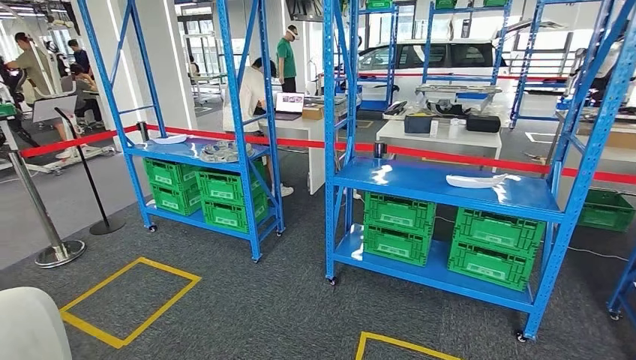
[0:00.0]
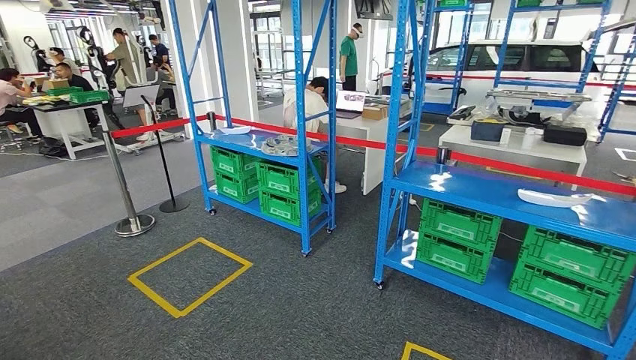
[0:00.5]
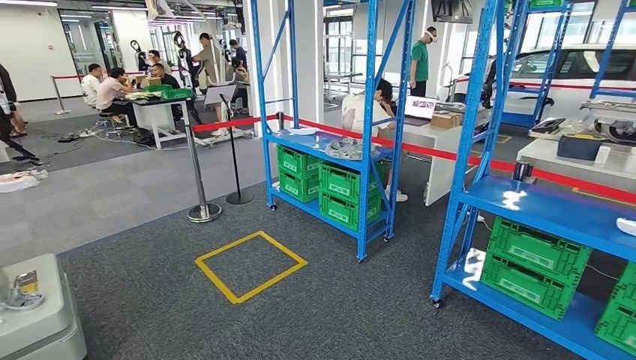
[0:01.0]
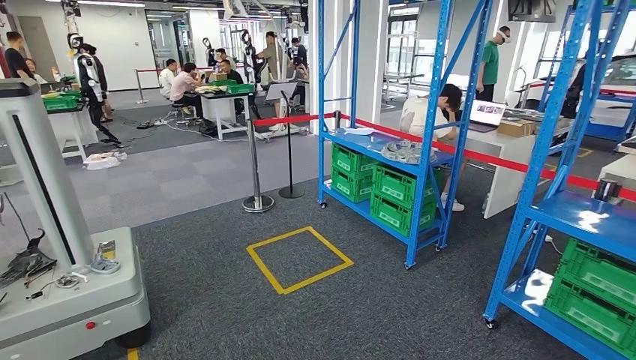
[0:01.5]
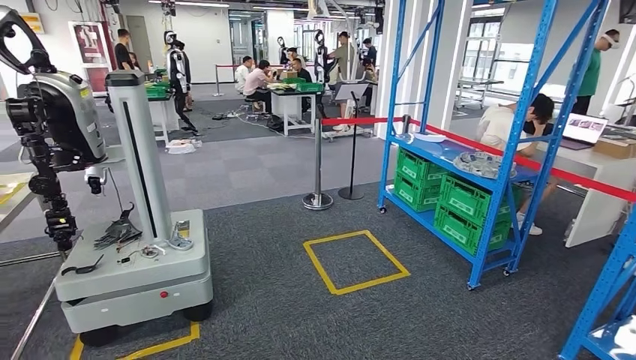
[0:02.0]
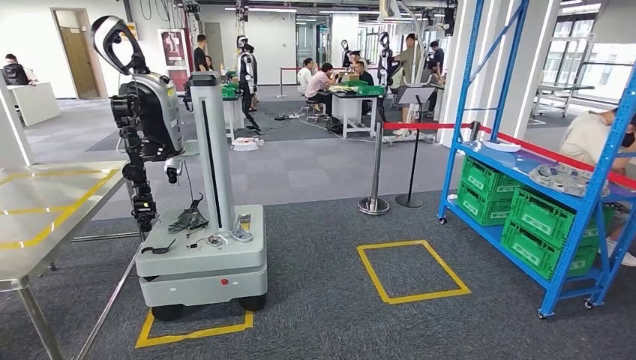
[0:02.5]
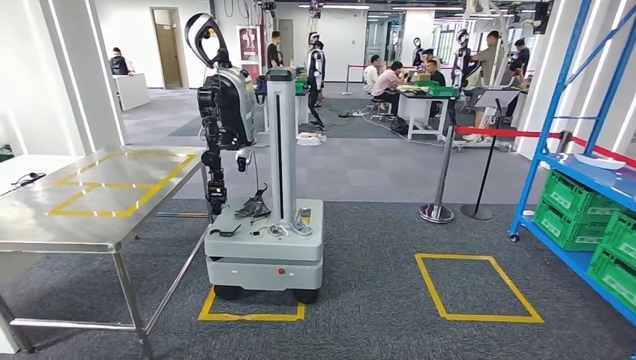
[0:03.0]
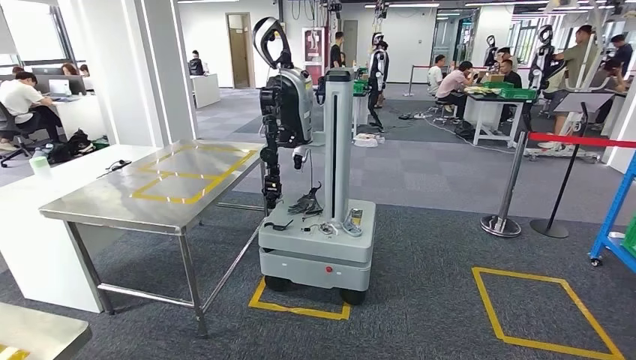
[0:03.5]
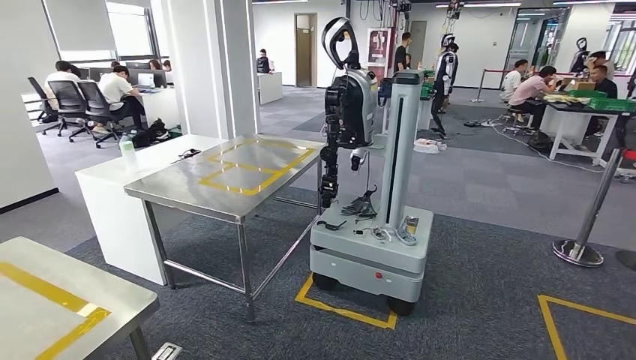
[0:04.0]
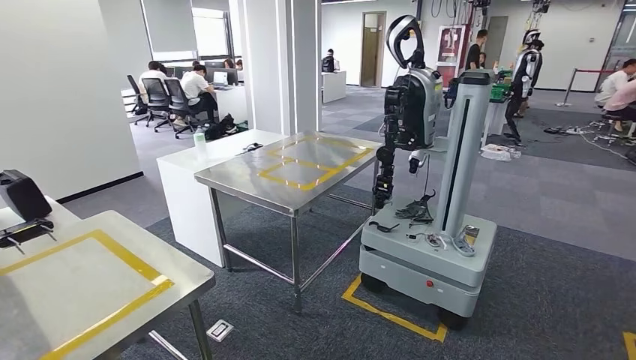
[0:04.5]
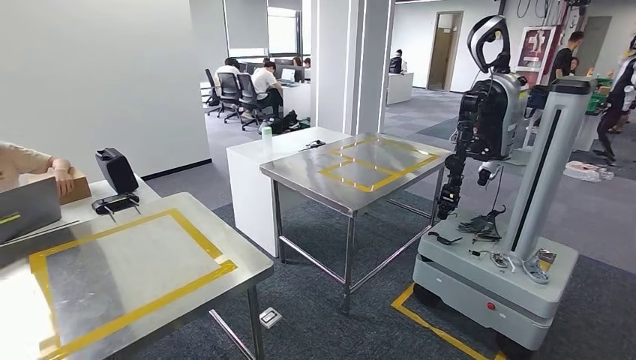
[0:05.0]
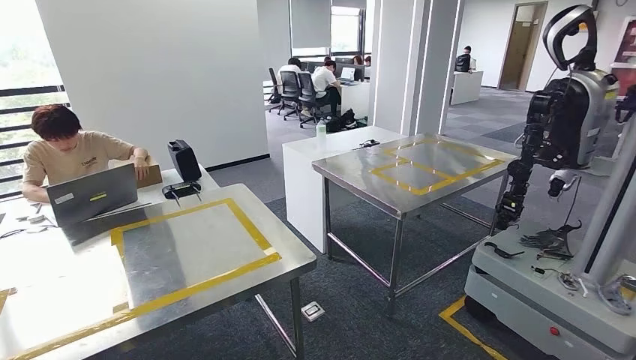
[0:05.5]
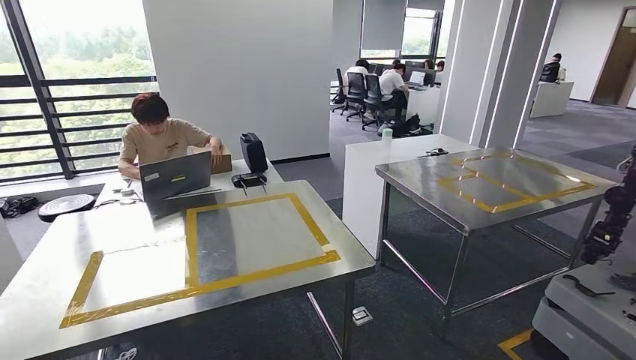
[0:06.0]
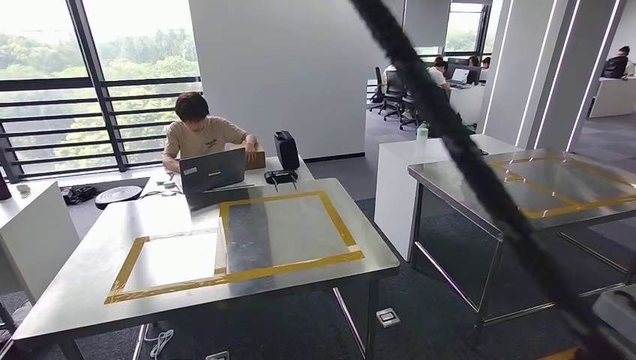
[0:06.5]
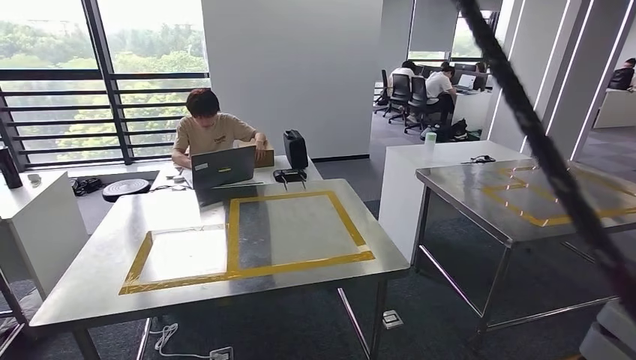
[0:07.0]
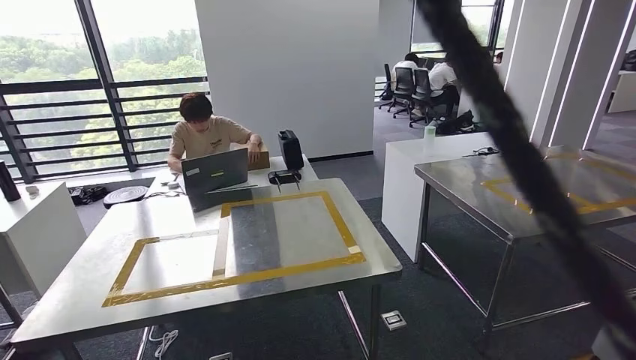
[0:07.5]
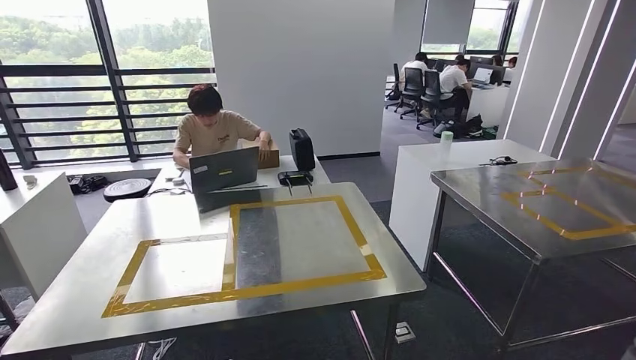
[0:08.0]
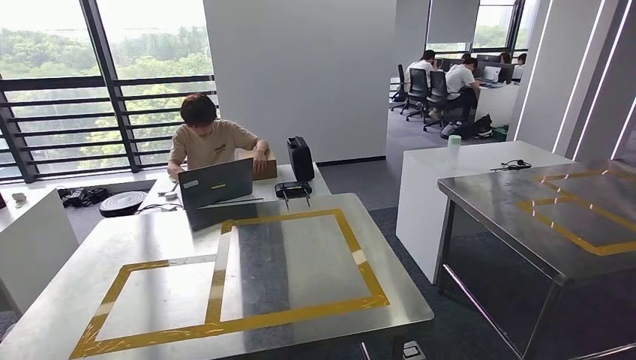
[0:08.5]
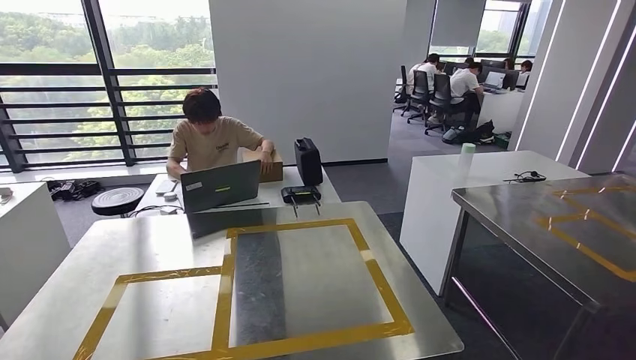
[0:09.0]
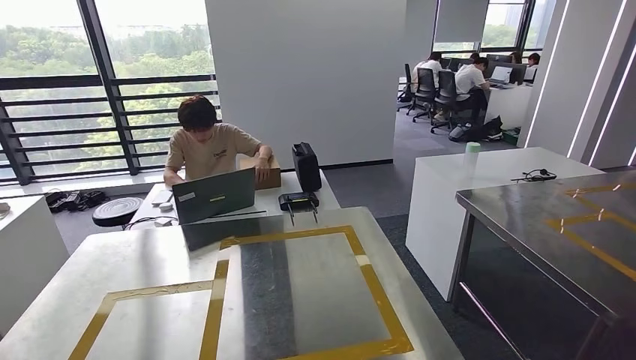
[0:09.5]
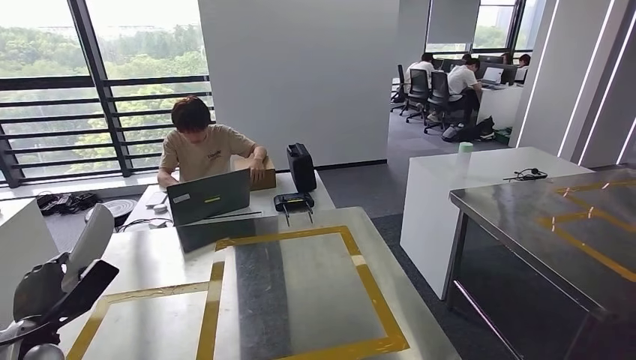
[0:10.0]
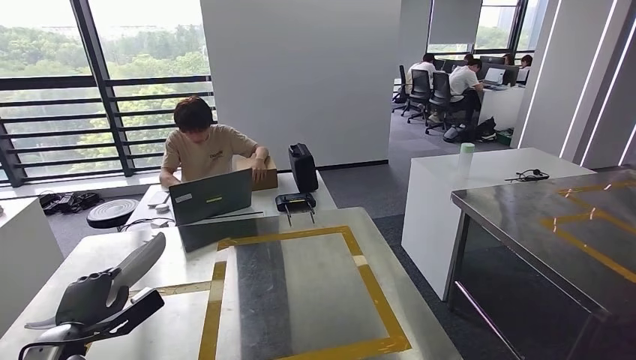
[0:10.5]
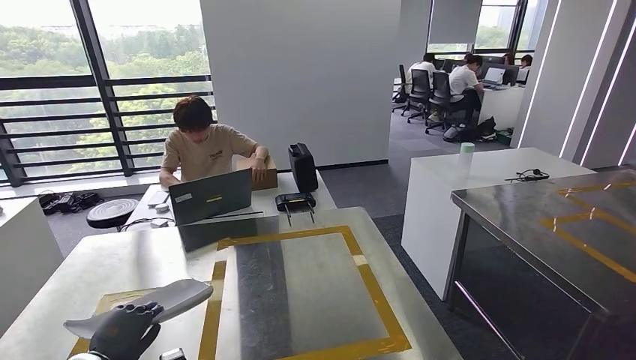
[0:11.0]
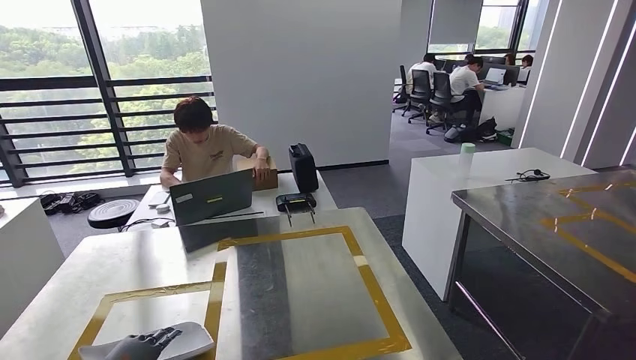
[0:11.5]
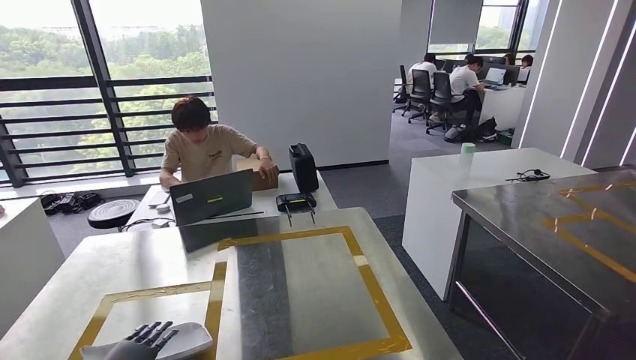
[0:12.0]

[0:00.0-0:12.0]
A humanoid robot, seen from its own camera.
Step, 0:00.0 to 0:05.5: Move the small component to the workbench.
0:10.0 to 0:12.0: The left hand shifts roughly 10 cm downward.

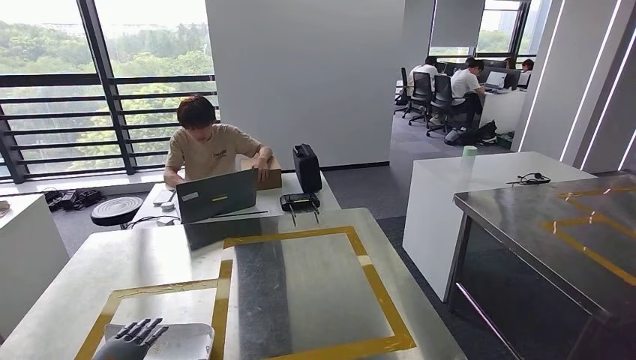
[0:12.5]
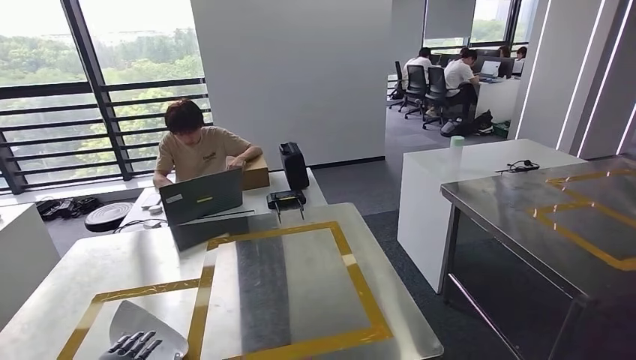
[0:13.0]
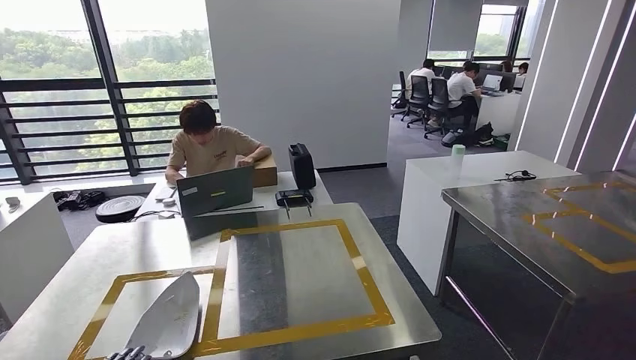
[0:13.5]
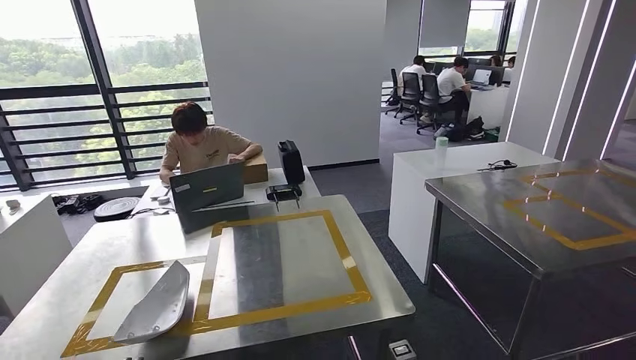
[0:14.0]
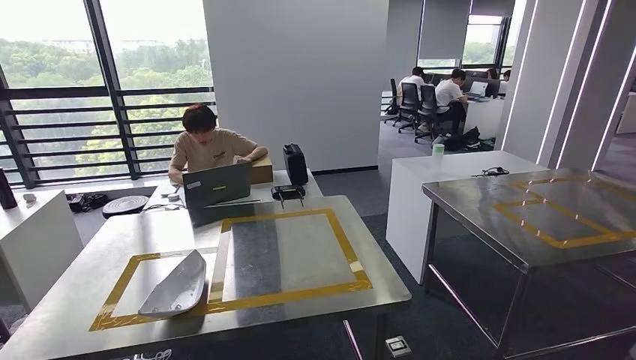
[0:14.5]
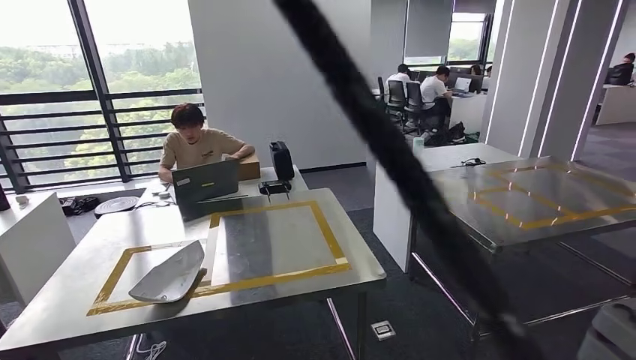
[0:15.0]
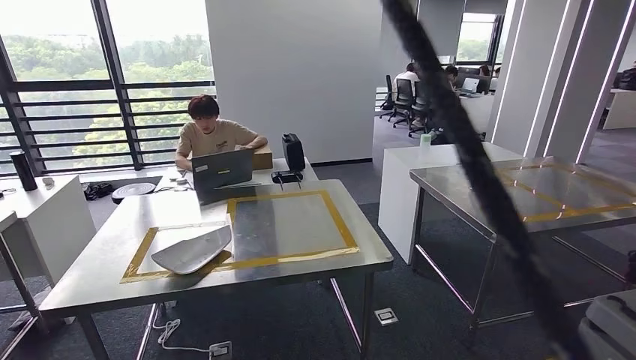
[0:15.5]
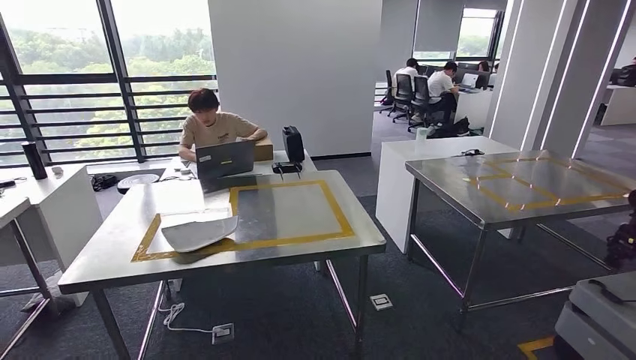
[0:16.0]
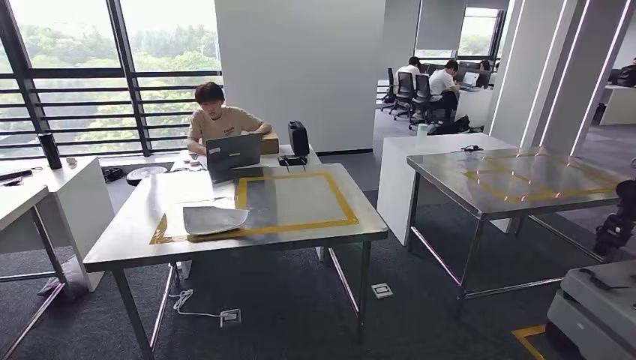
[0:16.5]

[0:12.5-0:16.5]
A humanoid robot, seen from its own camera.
Step, 0:12.5 to 0:15.5: Insert the small component into the corresponding slot on the workbench.
